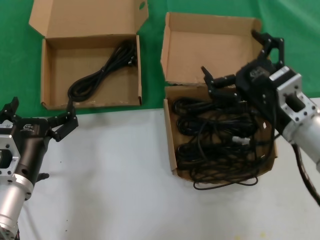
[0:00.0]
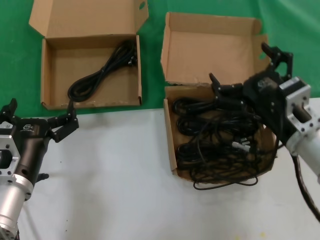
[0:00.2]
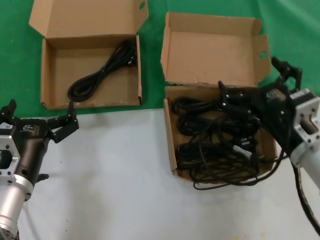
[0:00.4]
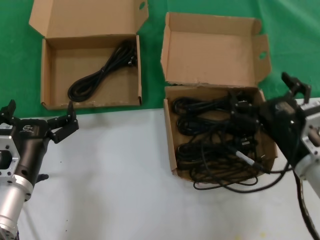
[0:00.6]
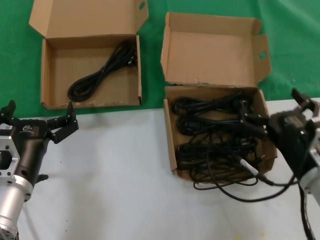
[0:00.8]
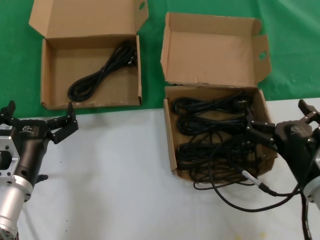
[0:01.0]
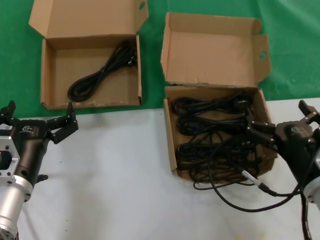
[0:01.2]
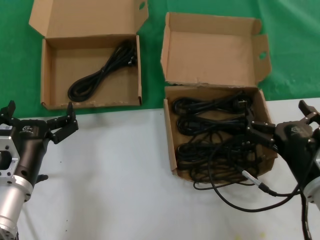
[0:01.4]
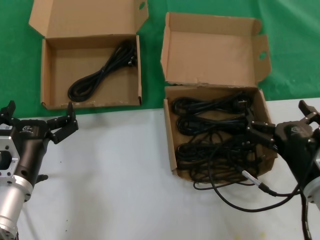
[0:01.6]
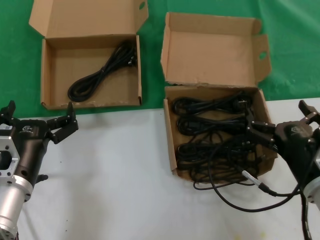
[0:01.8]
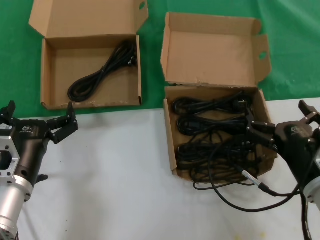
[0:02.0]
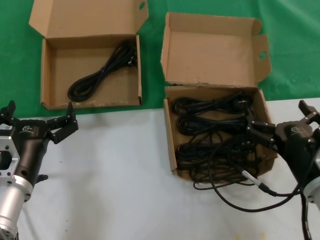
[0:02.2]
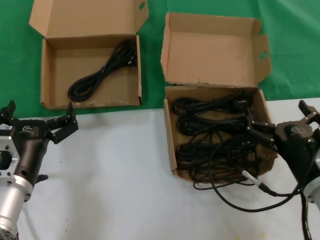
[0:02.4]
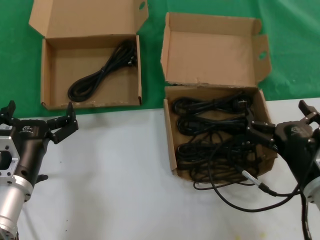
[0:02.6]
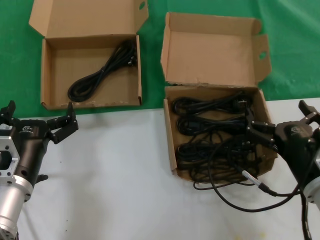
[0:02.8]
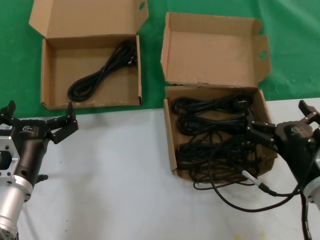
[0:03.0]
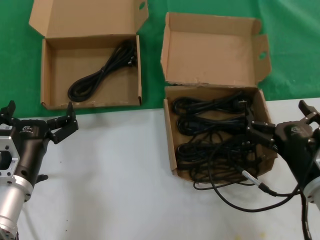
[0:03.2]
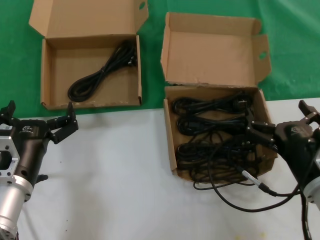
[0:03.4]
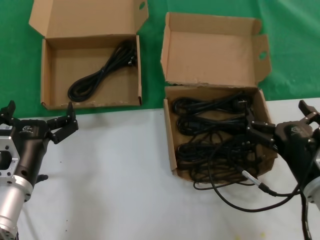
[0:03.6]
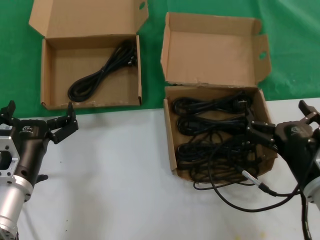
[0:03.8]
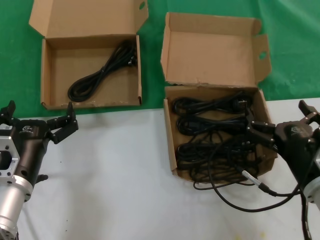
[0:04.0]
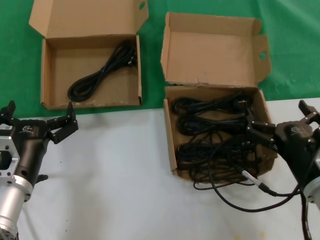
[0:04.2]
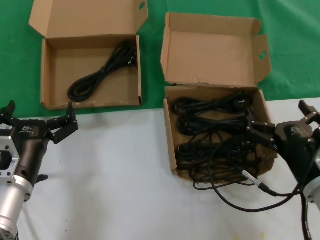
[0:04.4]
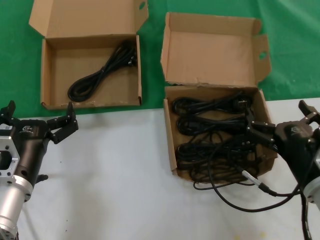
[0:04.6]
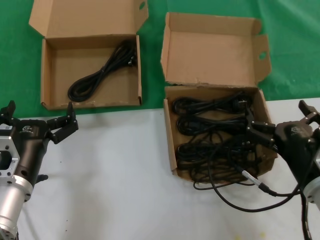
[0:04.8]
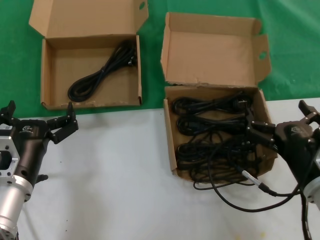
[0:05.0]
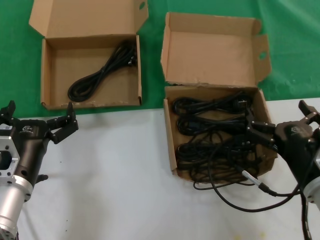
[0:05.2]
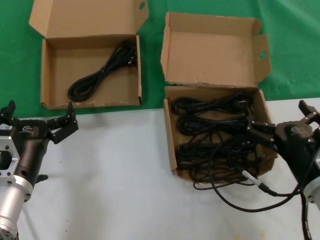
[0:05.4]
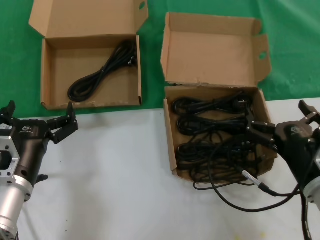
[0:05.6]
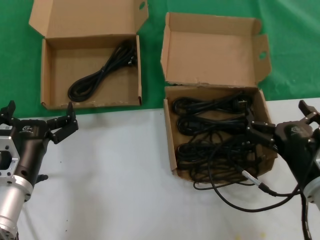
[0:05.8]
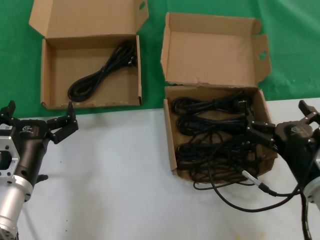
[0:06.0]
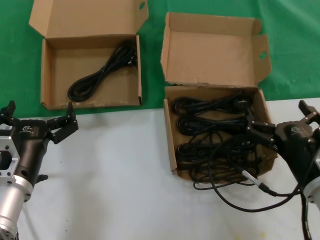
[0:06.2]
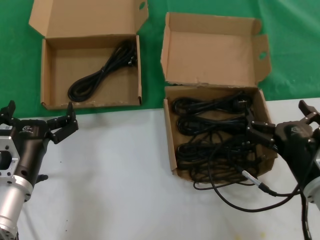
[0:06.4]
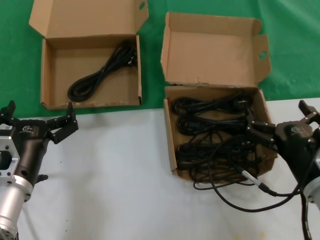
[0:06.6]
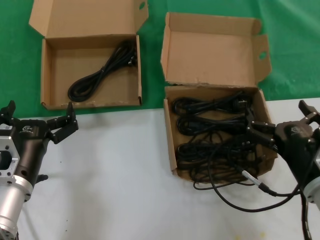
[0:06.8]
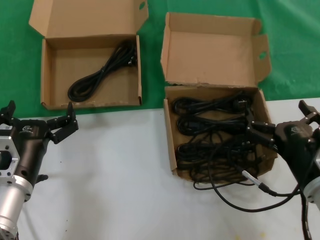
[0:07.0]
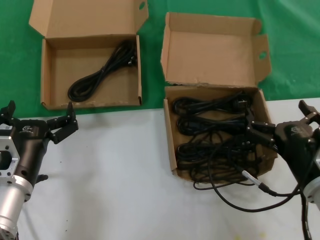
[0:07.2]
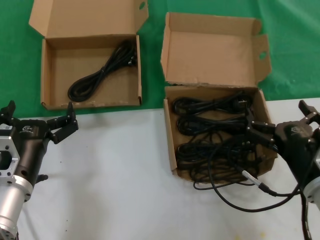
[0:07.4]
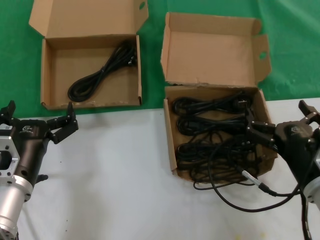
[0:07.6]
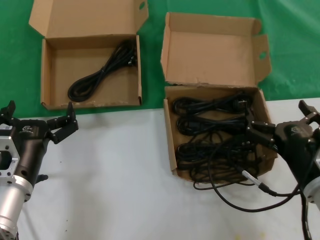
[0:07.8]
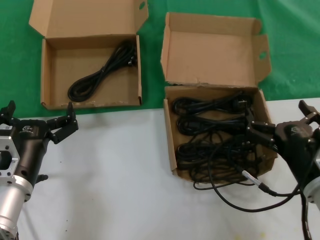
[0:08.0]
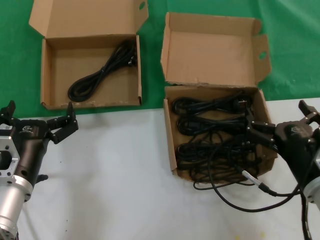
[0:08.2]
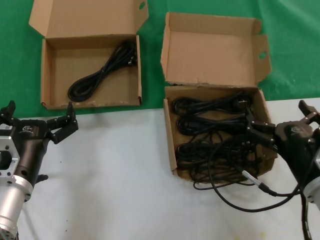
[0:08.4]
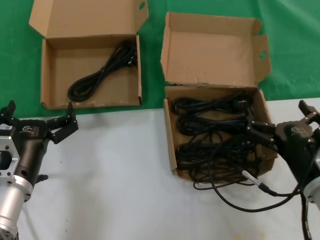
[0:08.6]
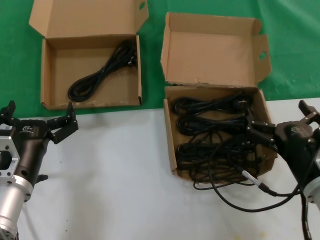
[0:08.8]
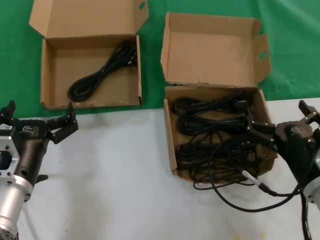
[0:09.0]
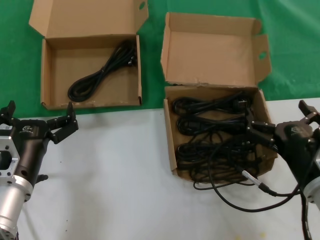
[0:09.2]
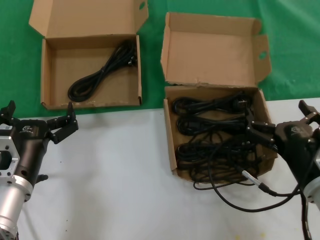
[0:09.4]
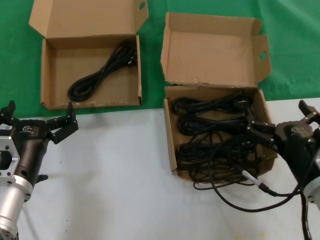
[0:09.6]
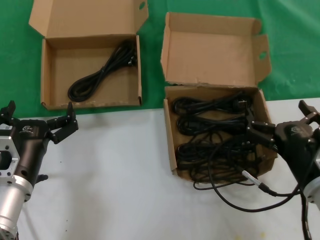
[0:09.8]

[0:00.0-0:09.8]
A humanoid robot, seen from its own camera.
Task of the whole recording: take the parts from the box containing them and put them into an empty box.
0:00.0 to 0:01.4: The right hand heads downward and backward, covering some 10 cm.
0:01.4 to 0:09.8: Both hands stay about where they are.

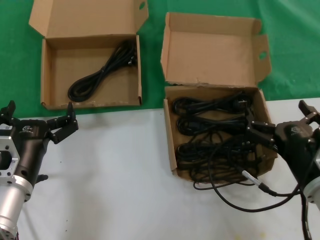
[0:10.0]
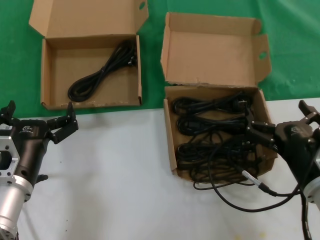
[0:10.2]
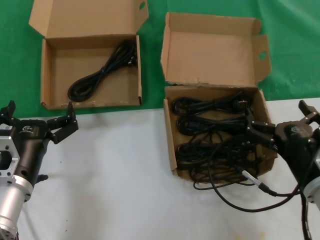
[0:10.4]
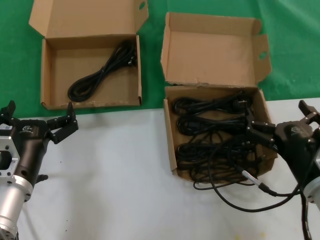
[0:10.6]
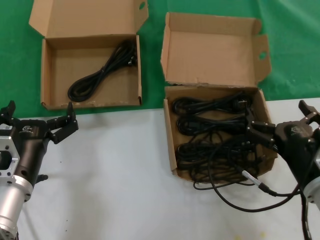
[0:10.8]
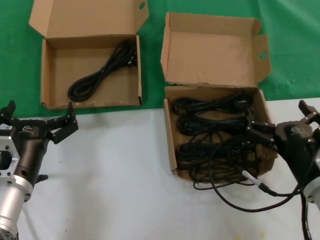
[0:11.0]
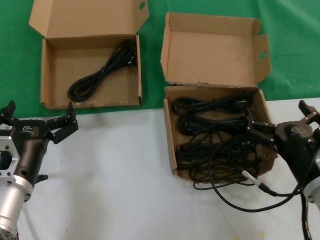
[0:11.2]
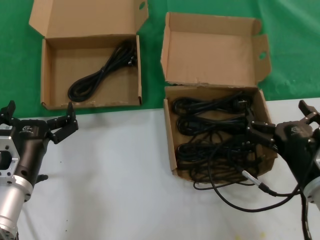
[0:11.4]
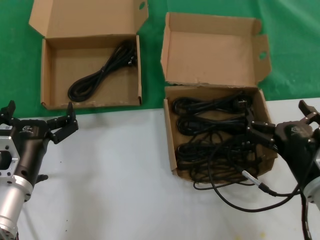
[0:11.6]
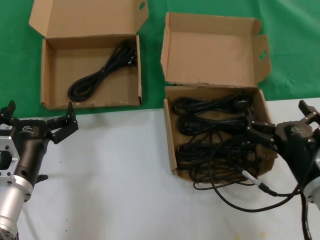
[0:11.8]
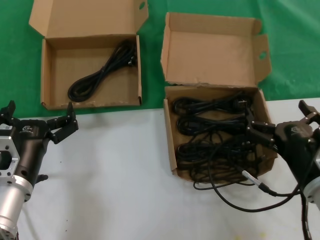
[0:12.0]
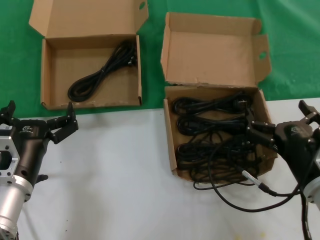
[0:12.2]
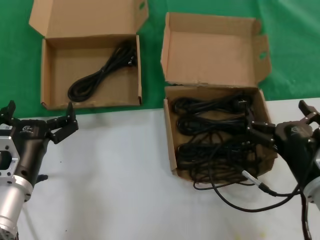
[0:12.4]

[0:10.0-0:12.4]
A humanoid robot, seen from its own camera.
Task of the whole recording: take the parts from the box containing them and put them into an empty box.
0:10.0 to 0:12.4: Both hands stay put.
